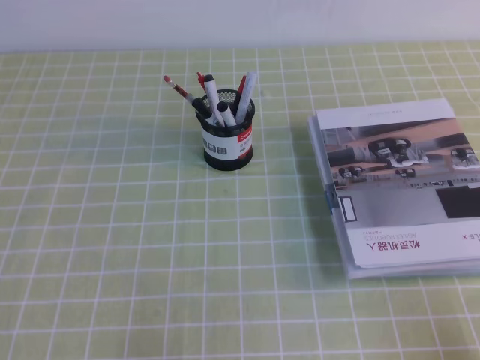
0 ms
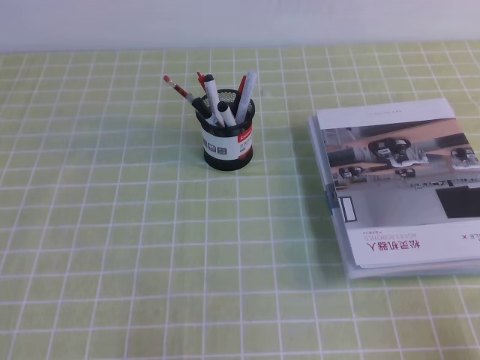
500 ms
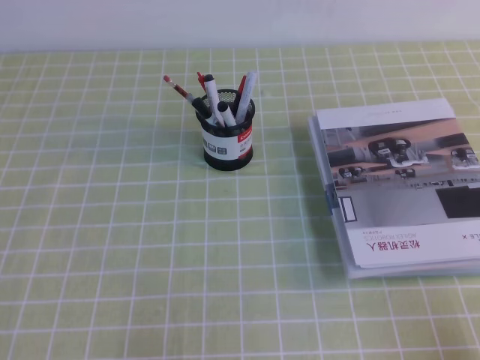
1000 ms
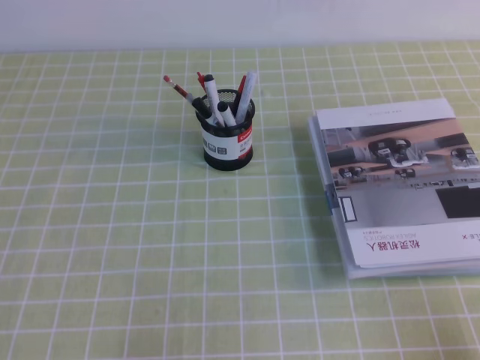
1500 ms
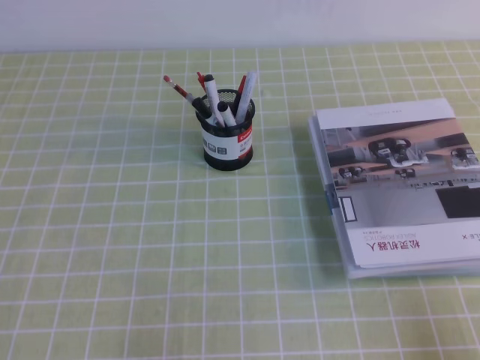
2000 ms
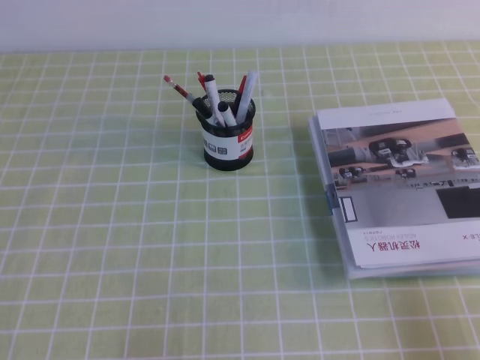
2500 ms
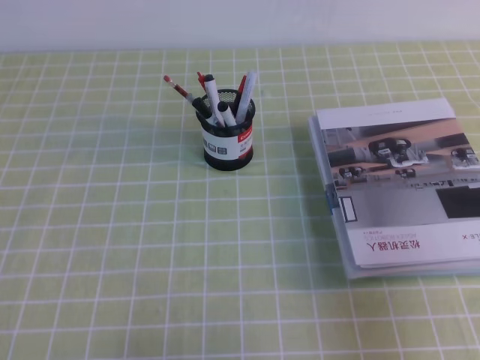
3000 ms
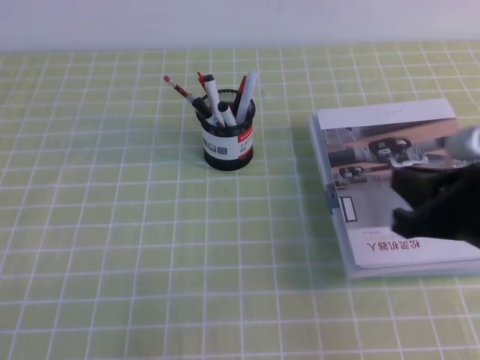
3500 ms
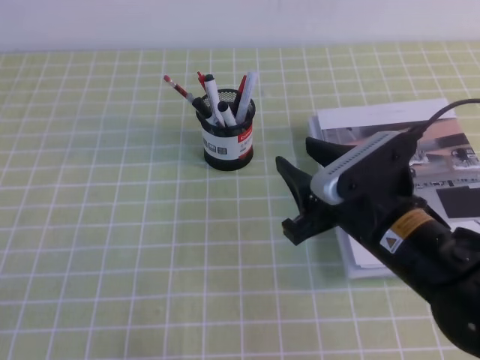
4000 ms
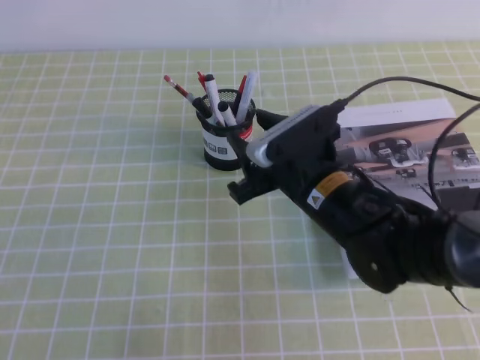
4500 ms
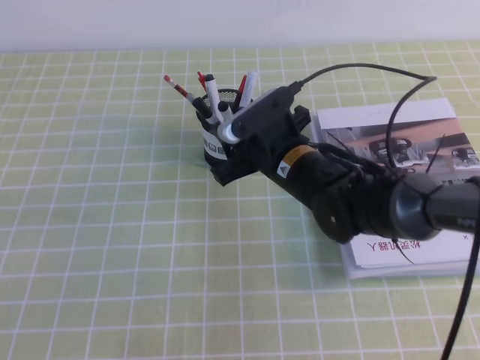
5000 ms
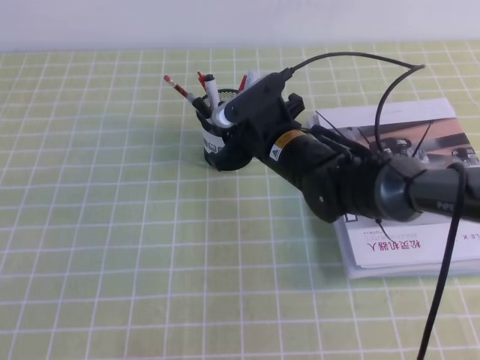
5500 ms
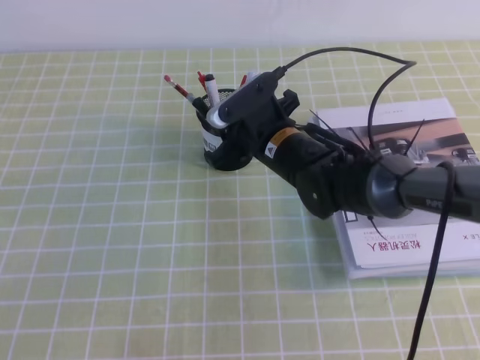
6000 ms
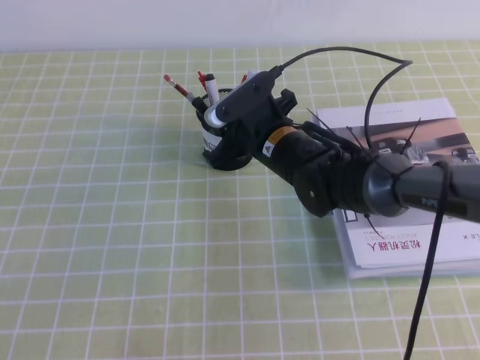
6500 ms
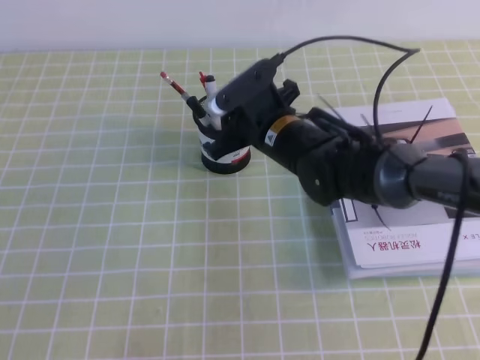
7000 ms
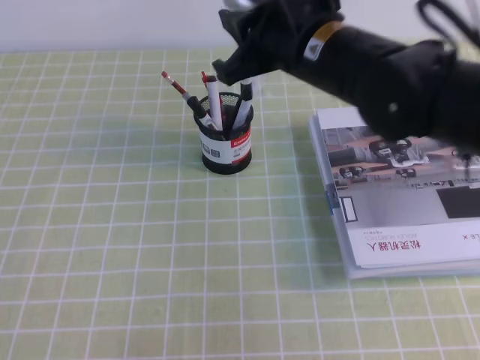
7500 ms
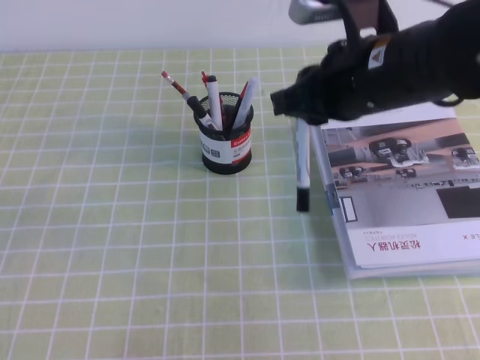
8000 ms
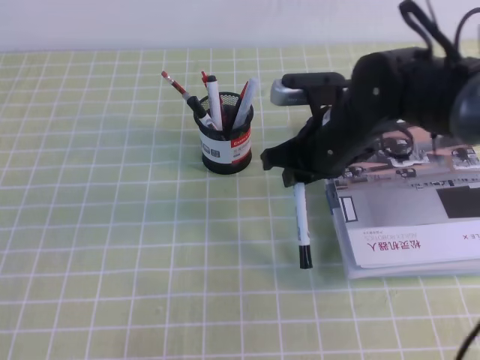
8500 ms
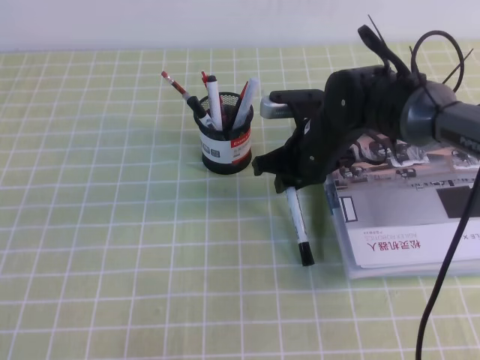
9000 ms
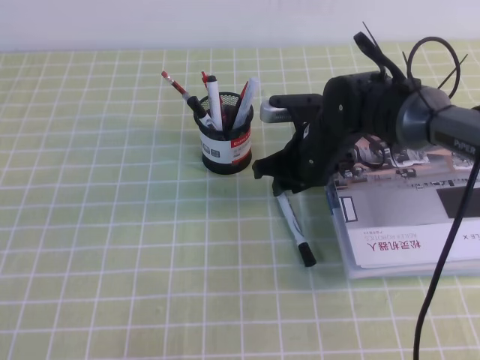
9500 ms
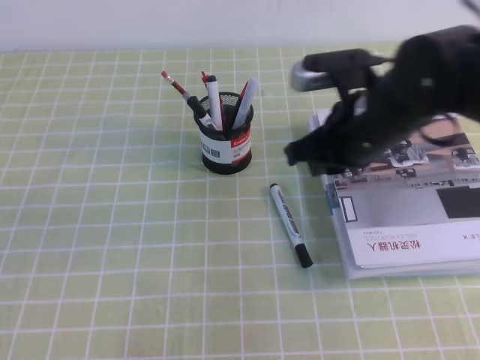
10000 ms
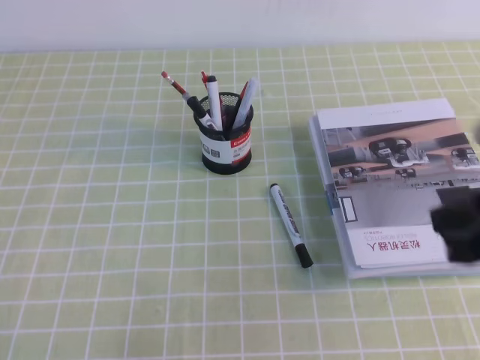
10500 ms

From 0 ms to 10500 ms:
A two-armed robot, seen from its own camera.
From 2000 ms to 4000 ms: The right gripper moves to the left and forward, roughly 25 cm, and opens its fingers.
From 4000 ms to 6500 ms: The right gripper is displaced forward and to the left by approximately 20 cm.
From 6500 ms to 8500 ms: The right gripper travels to the right and upward by approximately 10 cm.
From 8500 ms to 10500 ms: The right gripper is displaced backward, to the right and upward by some 25 cm.

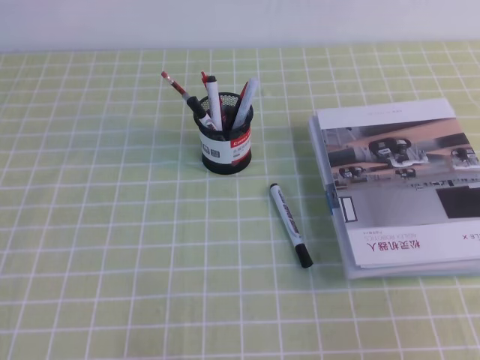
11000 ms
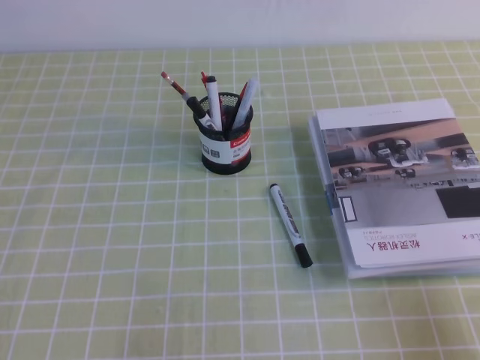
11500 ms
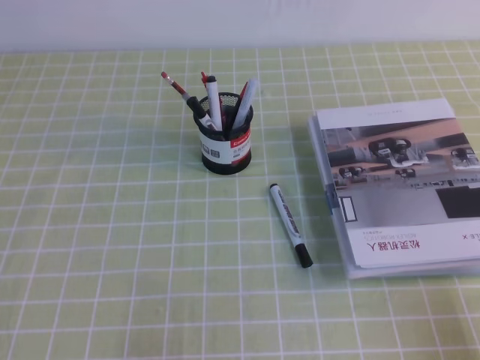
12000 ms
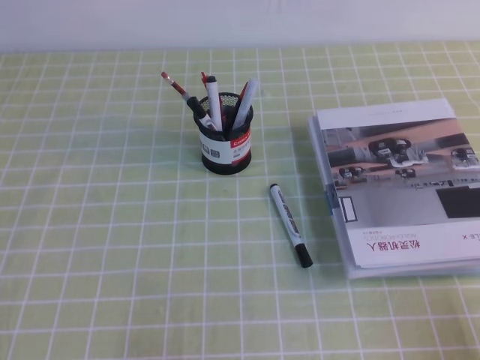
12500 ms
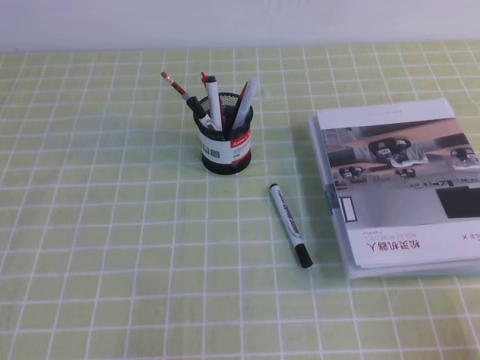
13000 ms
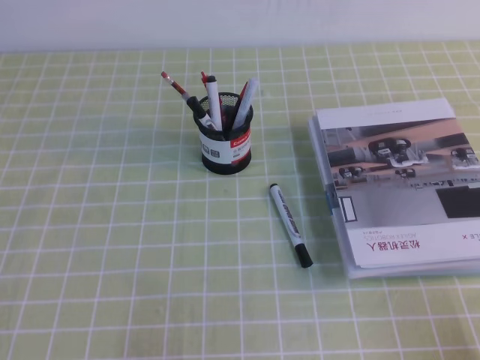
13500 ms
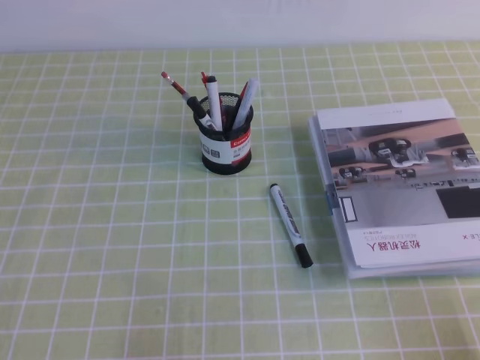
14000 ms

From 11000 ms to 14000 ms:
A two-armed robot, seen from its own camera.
Step, from 11000 ms to 14000 ms: Pick up the pen from the pen holder.
From 11000 ms to 12500 ms: The right gripper heads downward and to the right, covering roughly 10 cm.
